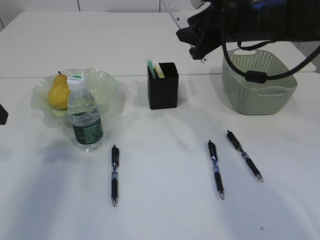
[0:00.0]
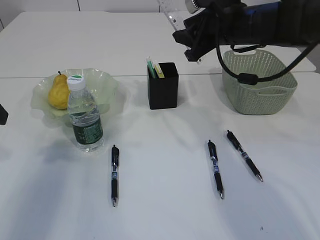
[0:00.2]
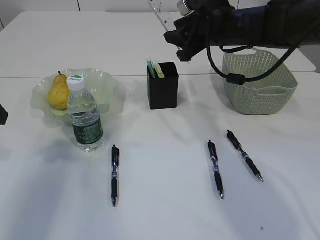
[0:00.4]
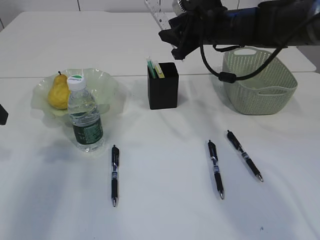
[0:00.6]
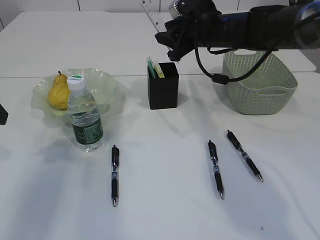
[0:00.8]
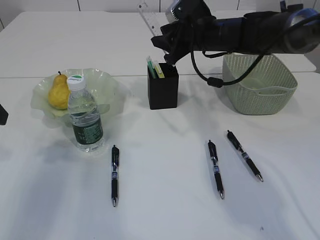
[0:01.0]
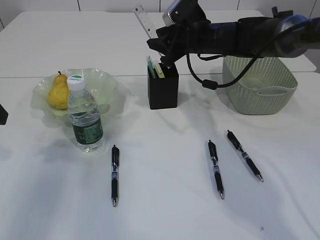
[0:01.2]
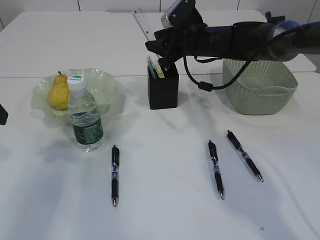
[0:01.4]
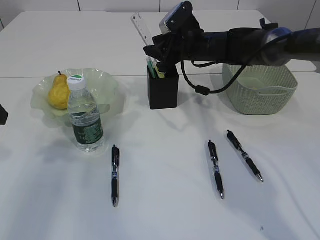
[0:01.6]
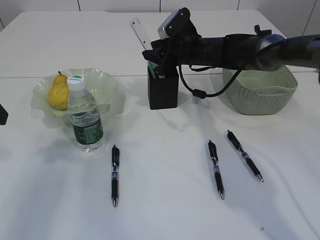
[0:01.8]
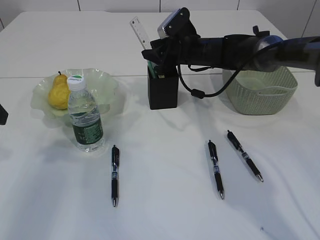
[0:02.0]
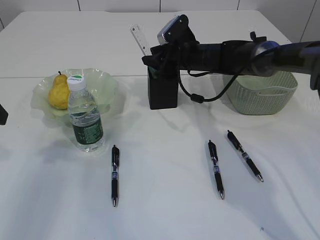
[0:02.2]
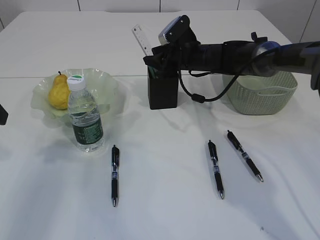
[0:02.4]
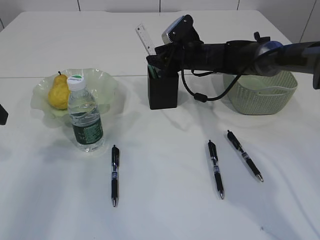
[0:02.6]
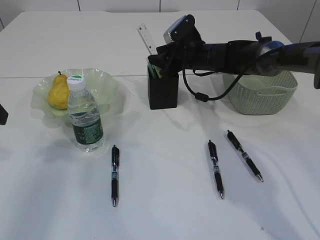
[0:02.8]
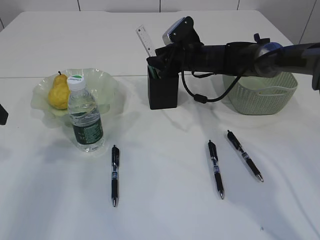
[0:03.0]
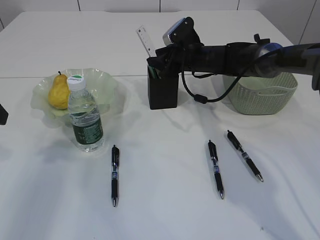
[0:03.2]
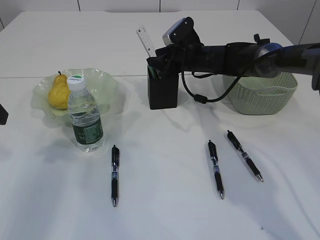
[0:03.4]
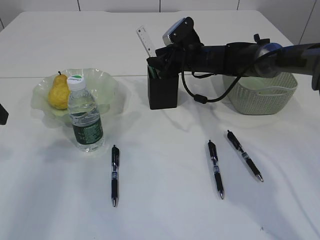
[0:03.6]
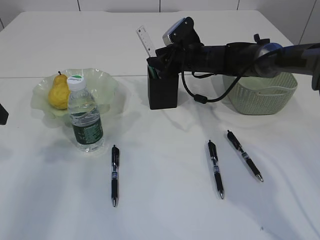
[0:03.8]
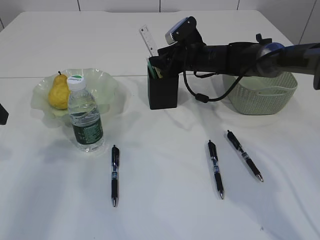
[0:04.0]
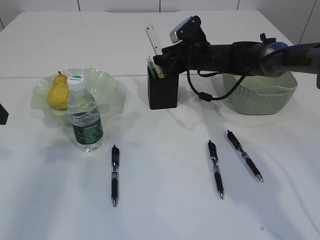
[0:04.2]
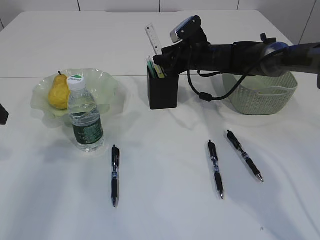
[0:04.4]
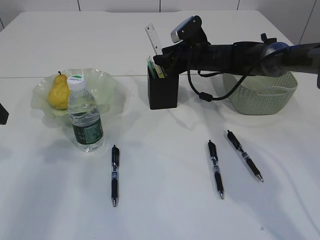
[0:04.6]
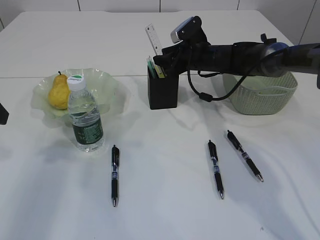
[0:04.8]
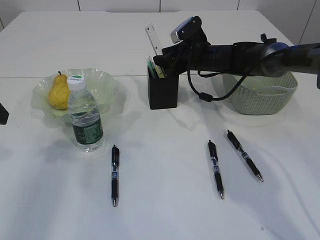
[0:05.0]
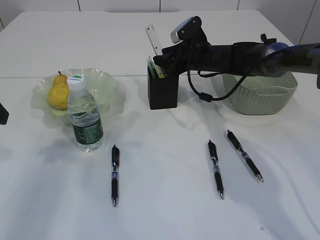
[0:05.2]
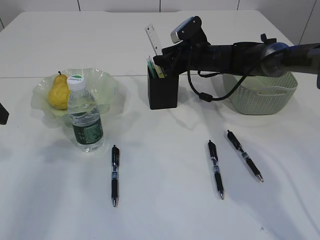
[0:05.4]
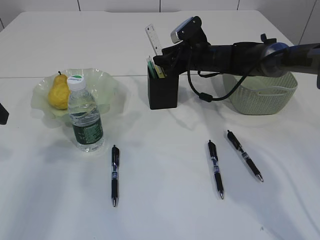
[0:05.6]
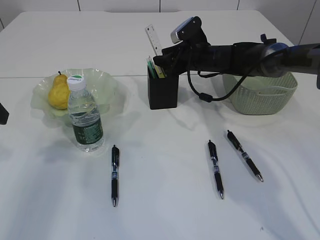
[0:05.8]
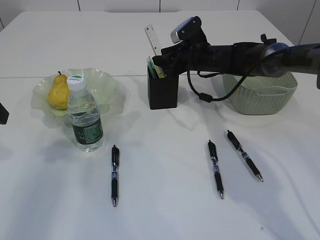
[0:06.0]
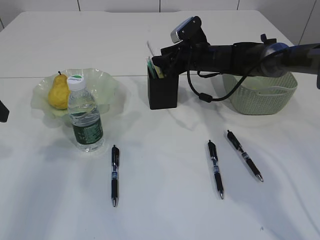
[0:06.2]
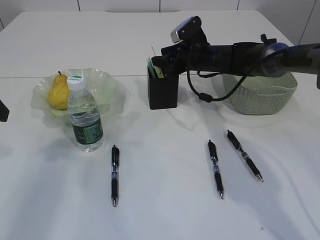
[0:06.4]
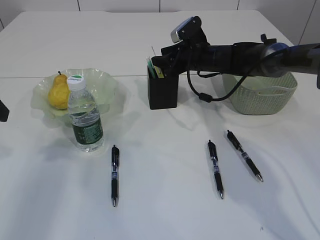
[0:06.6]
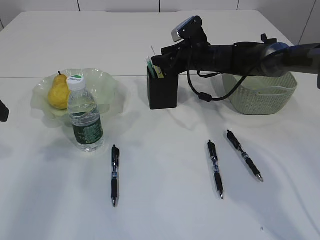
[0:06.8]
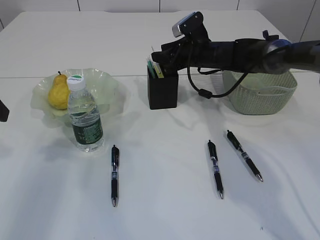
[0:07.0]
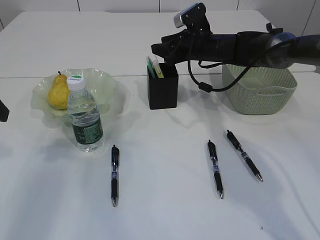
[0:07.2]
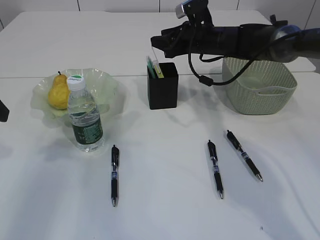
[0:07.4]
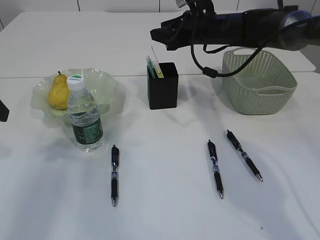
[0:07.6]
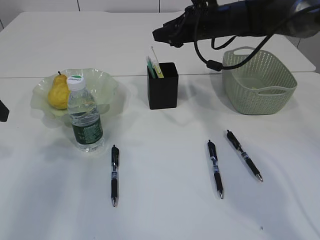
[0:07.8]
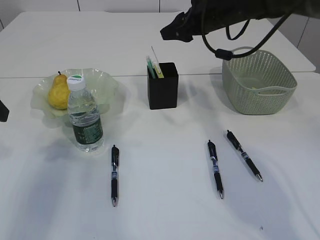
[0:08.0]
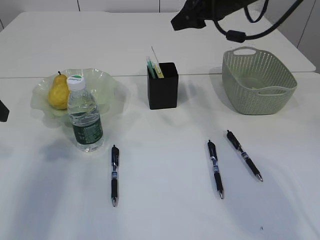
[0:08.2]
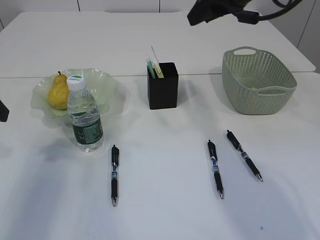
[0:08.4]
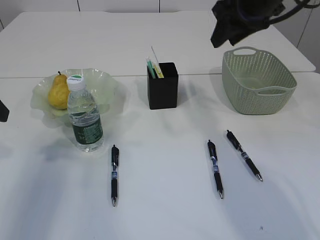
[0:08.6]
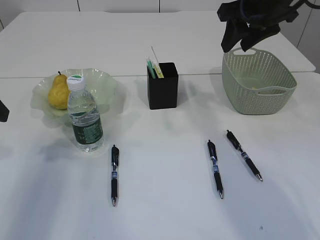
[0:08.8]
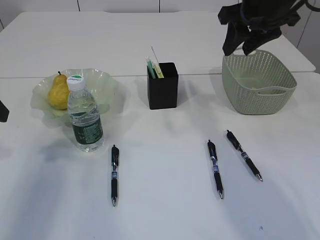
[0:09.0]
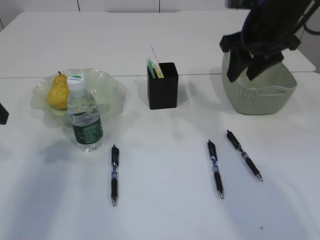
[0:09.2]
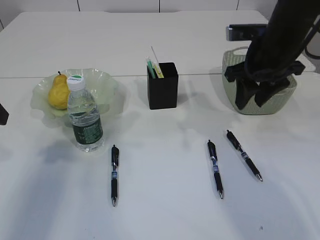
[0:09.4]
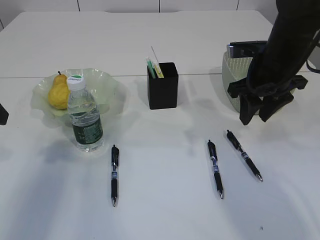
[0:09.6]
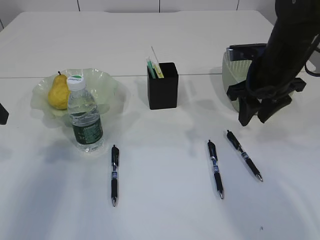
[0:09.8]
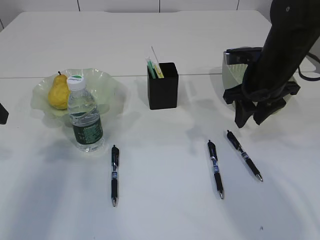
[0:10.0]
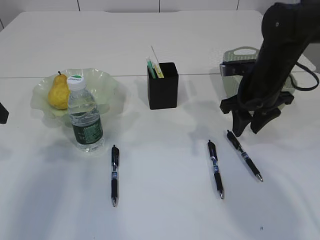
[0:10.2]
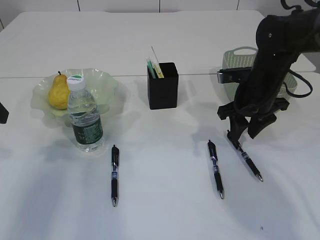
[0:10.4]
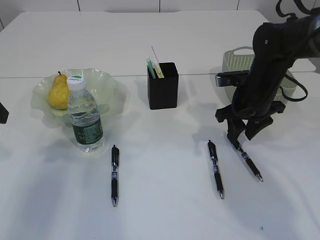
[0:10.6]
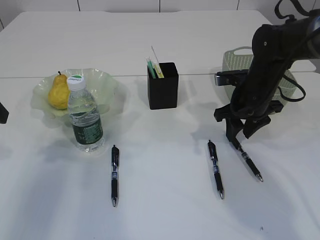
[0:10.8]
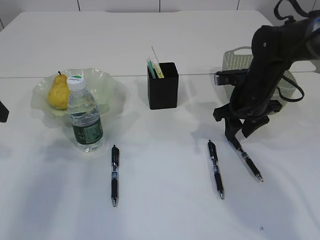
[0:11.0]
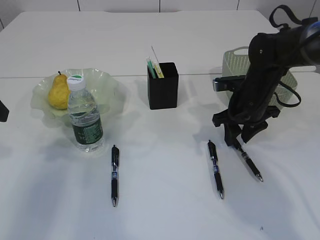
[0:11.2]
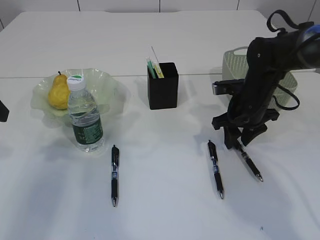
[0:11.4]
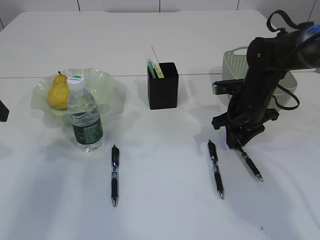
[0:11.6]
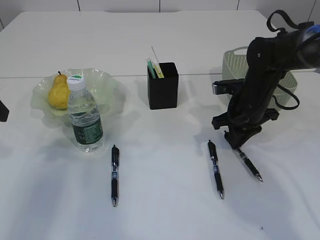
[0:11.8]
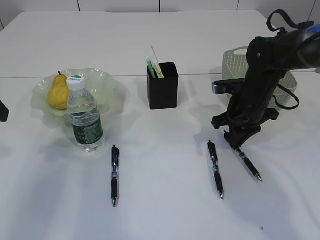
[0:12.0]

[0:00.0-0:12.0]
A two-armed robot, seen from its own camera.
Step, 0:00.0 to 0:07.6: Place the ruler into the pen holder.
0:00.0 to 0:01.6: The right gripper goes about 15 cm forward and downward.
0:01.6 to 0:04.4: There are only small adjustments of the grippers.
0:04.4 to 0:06.0: Neither gripper changes place.
0:06.0 to 0:07.6: The right gripper is displaced upward by roughly 5 cm.
0:07.6 to 0:09.0: The right gripper is displaced backward, upward and to the right by about 15 cm.
0:09.0 to 0:10.4: The right gripper travels downward by some 15 cm.
0:10.4 to 0:12.0: The right gripper closes.

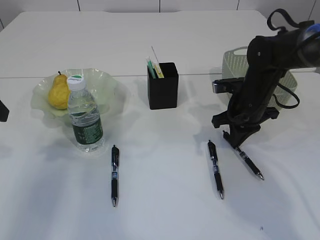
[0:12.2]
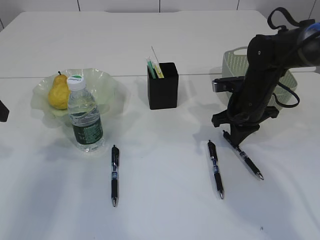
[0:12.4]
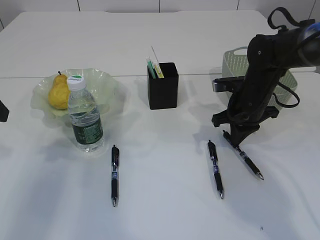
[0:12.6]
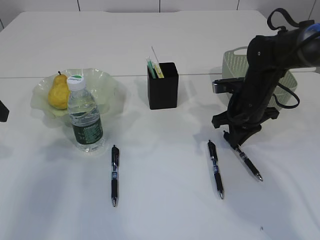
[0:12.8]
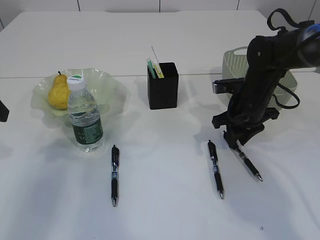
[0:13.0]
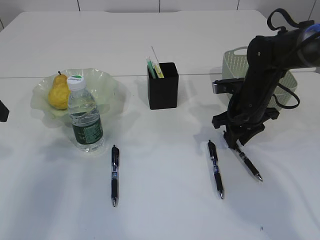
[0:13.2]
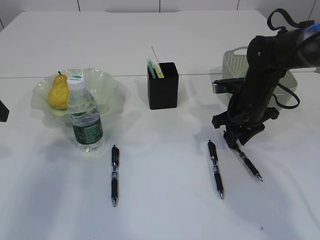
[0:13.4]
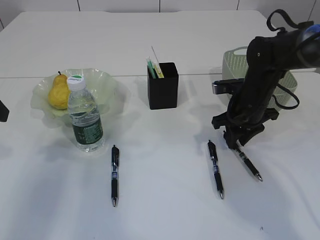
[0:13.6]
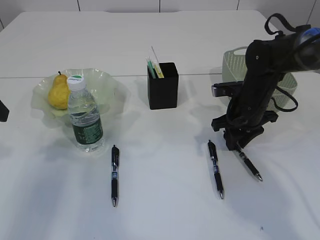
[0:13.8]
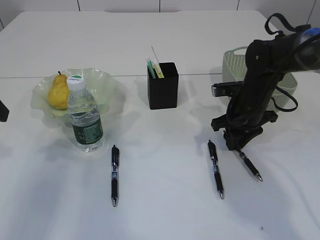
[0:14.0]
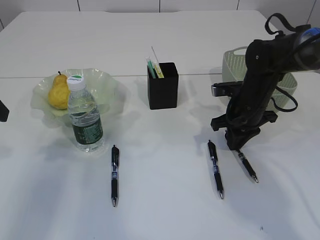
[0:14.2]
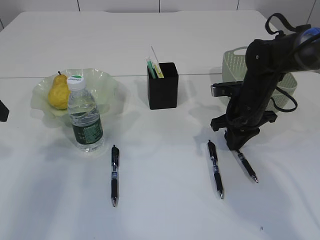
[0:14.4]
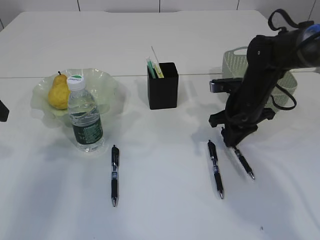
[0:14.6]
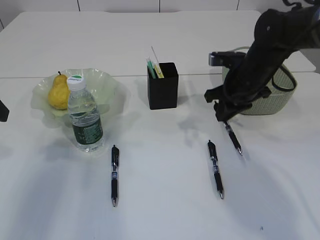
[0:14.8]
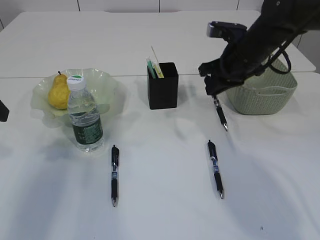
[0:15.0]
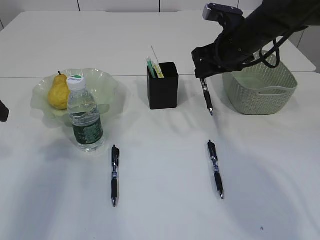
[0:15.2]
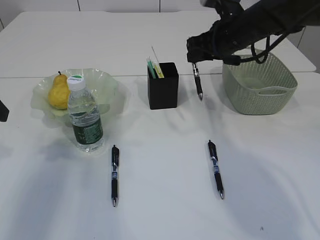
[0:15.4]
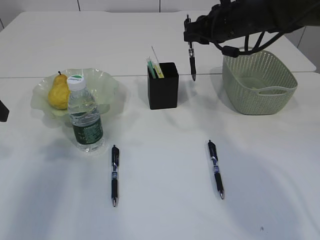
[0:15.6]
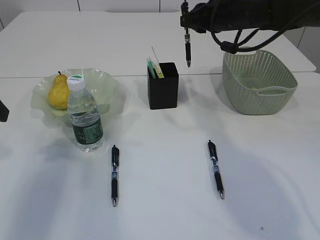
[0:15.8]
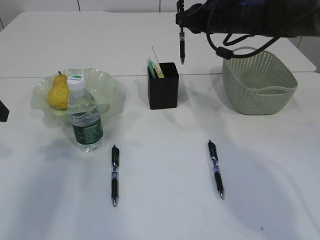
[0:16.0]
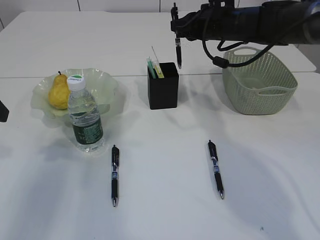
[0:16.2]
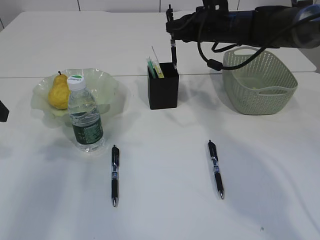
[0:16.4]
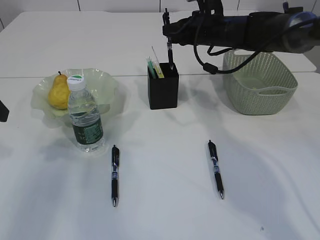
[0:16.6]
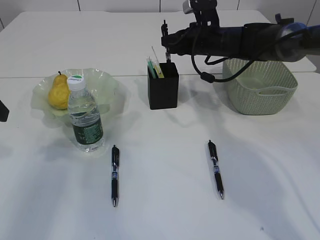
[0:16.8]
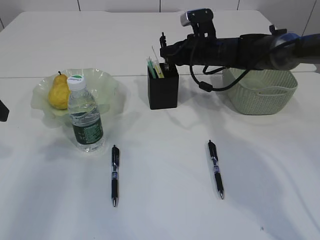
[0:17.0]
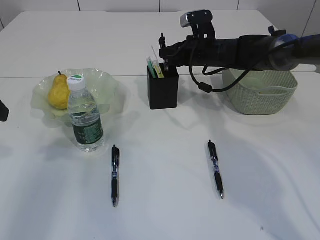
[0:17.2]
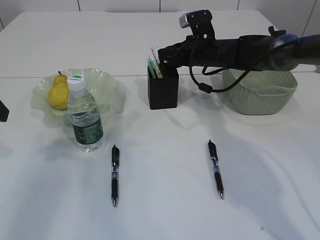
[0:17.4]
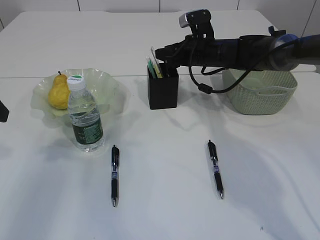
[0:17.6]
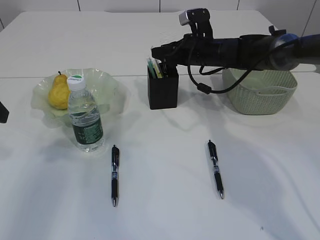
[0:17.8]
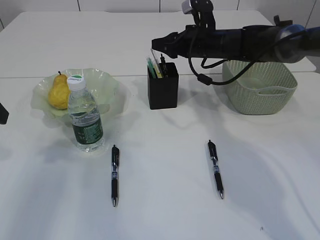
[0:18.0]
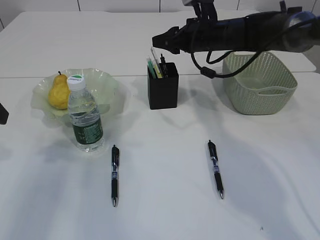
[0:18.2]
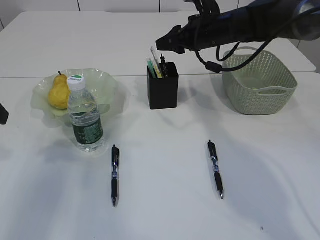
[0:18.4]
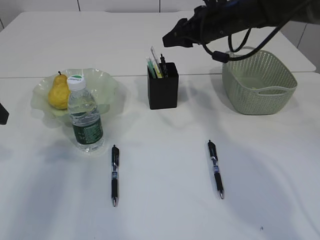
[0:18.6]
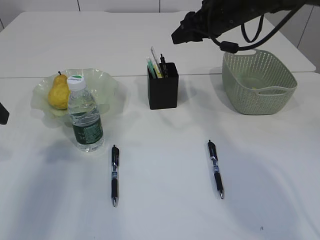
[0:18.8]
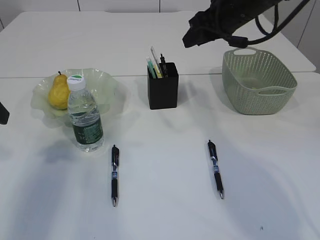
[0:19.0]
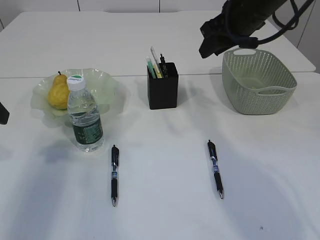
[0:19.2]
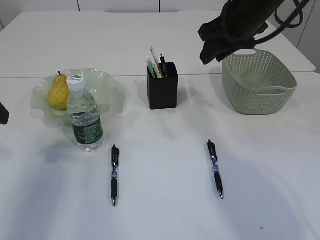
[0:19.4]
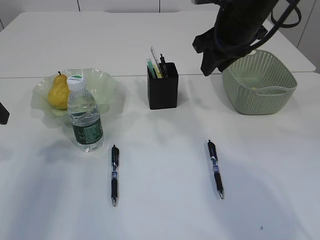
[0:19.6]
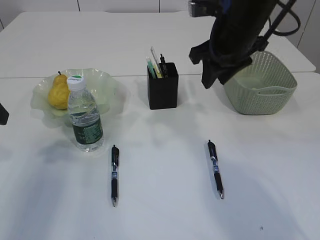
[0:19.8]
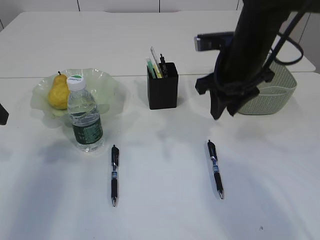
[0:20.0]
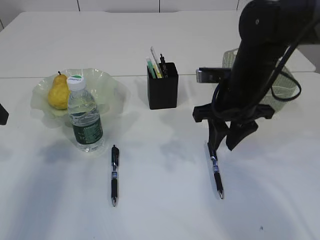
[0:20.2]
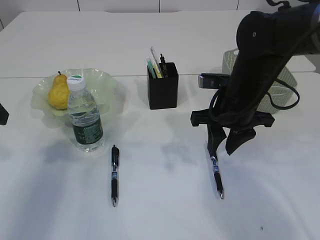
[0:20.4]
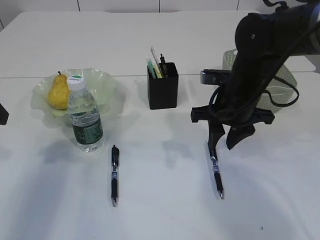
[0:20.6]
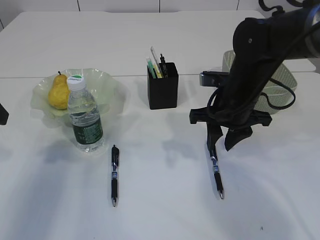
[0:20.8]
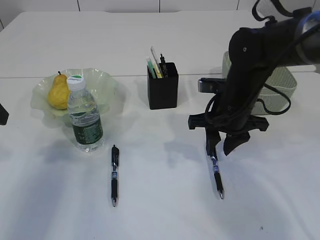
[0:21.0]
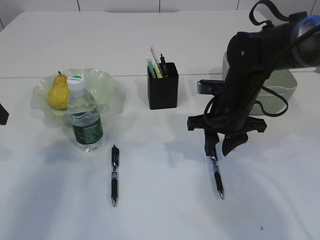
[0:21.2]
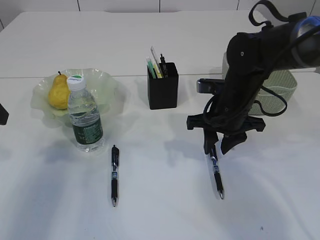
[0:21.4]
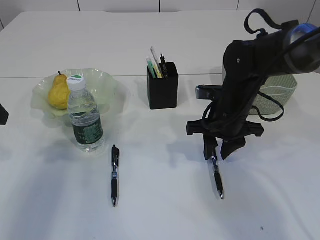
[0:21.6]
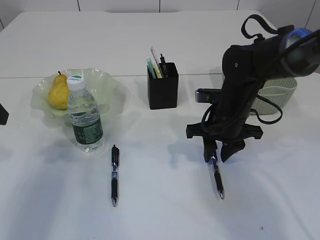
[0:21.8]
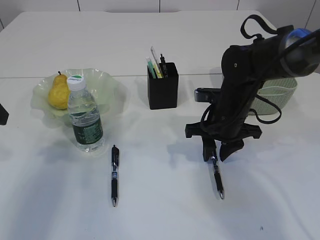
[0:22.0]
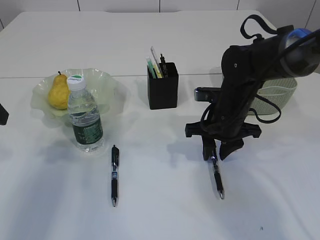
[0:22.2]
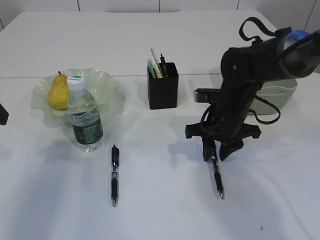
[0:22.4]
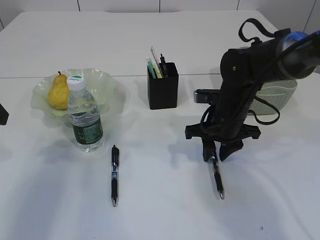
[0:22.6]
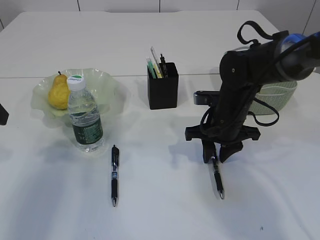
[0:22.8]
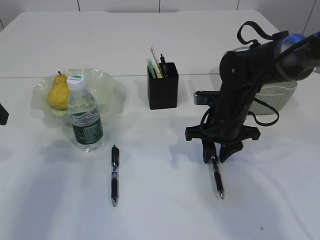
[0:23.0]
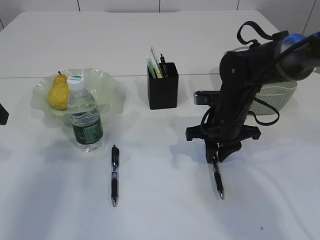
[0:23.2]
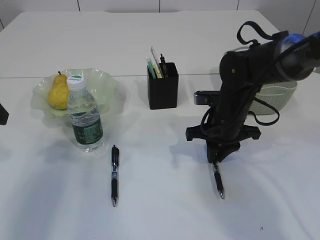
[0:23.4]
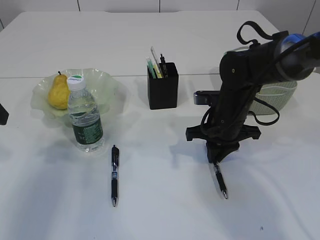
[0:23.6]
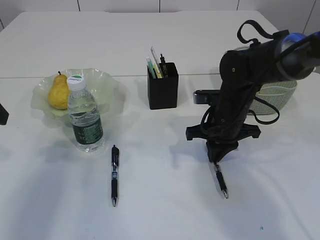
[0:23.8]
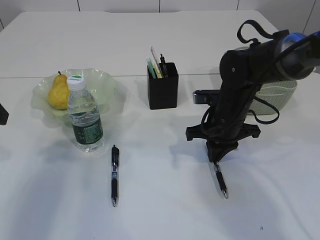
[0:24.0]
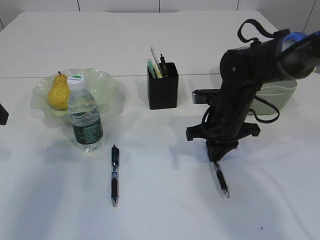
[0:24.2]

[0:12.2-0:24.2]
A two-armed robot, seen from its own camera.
Step, 0:12.2 to 0:15.0: Pick up the pen with right arm.
Step, 0:15.2 to 0:18.4: Place the pen into the pen holder.
0:12.2 to 0:13.8: The right gripper opens.
0:13.8 to 0:15.2: The right gripper heads upward, covering some 10 cm.
0:15.2 to 0:16.6: The right gripper goes roughly 5 cm forward.
0:16.6 to 0:18.2: The right gripper opens up.
0:18.2 to 0:19.8: The right gripper moves backward and upward, approximately 10 cm.
0:19.8 to 0:21.2: The right gripper heads downward, covering about 15 cm.
0:21.2 to 0:22.6: The grippers move only a little.
0:22.6 to 0:24.2: The right gripper closes its fingers.
